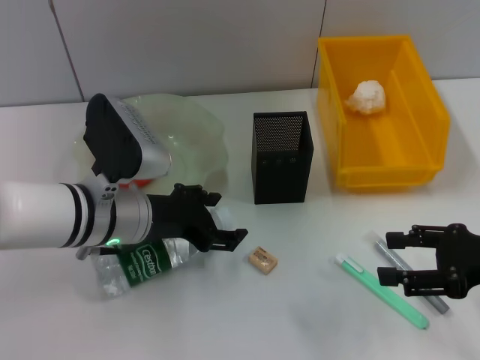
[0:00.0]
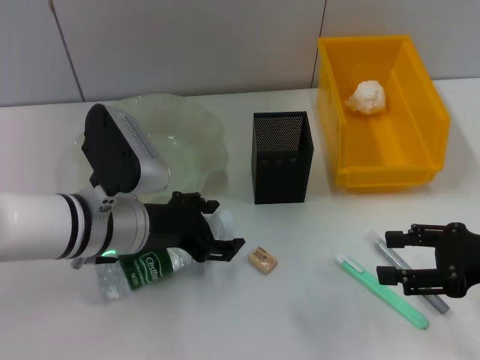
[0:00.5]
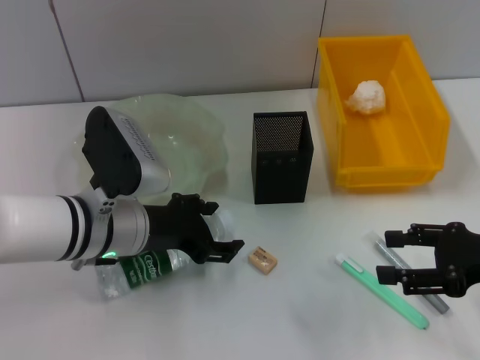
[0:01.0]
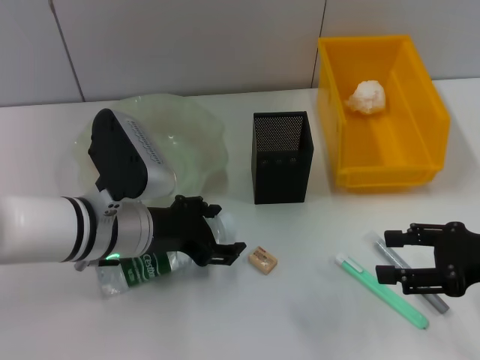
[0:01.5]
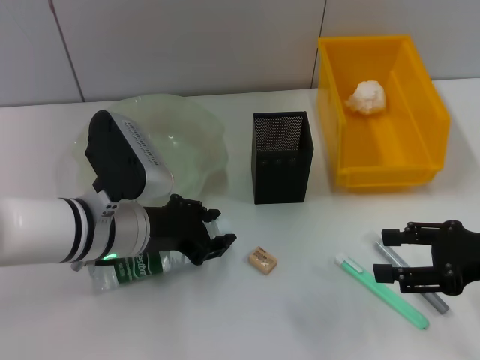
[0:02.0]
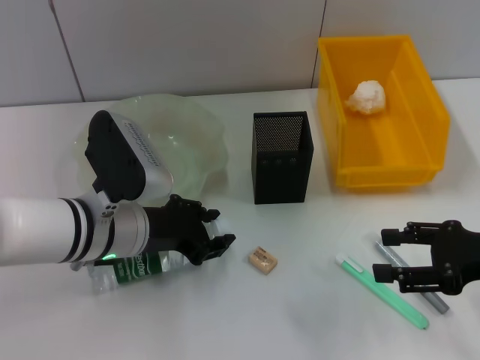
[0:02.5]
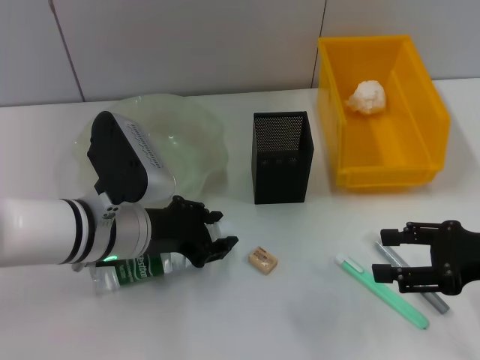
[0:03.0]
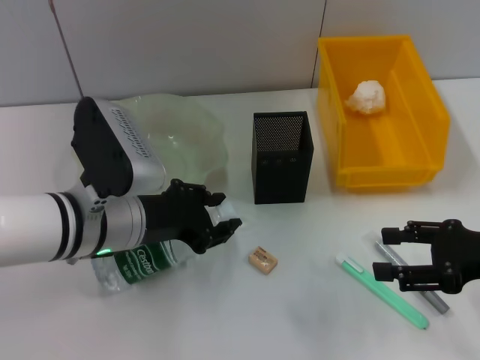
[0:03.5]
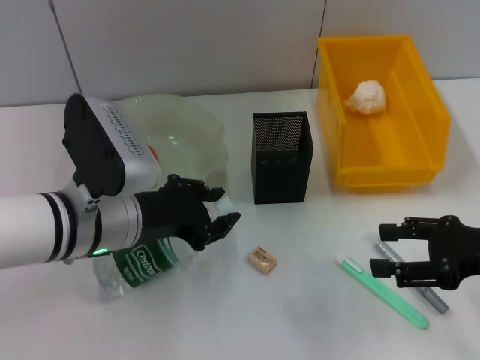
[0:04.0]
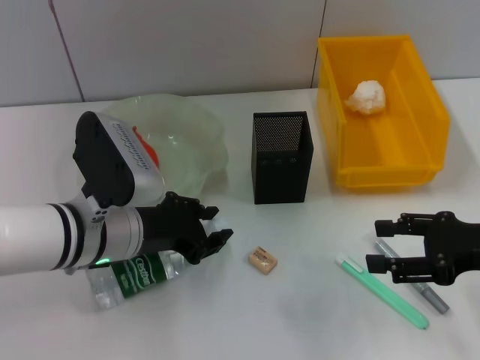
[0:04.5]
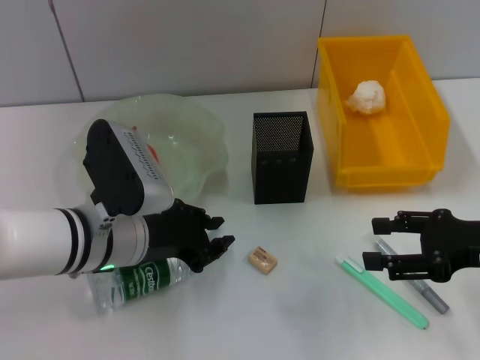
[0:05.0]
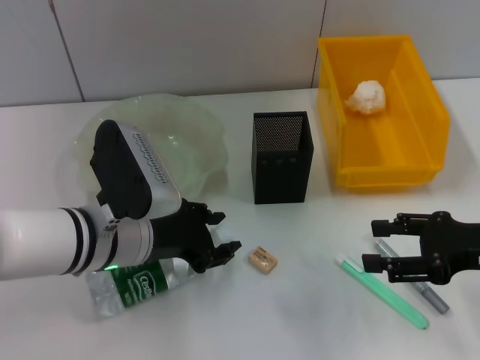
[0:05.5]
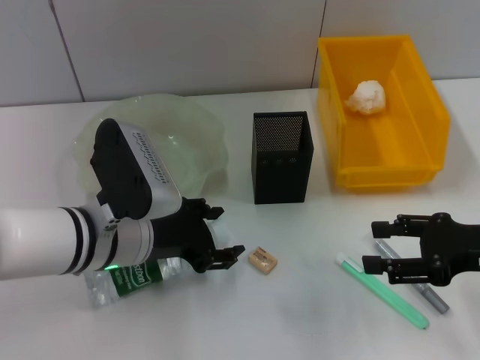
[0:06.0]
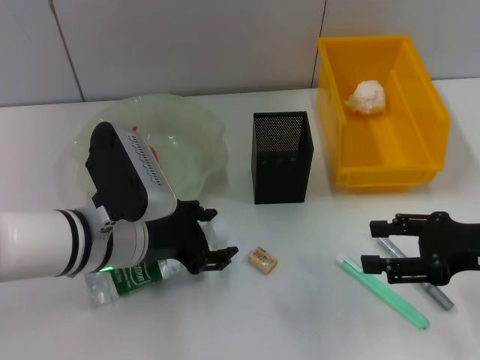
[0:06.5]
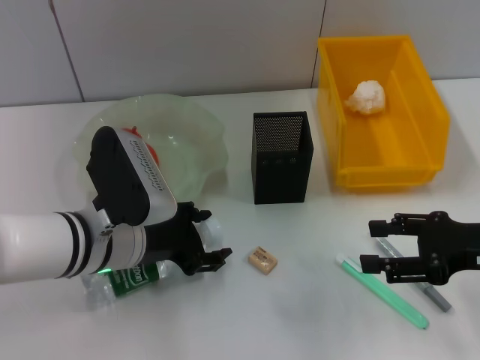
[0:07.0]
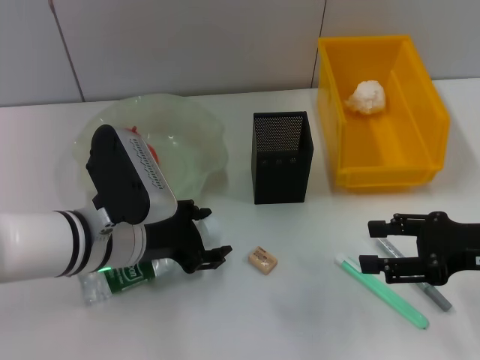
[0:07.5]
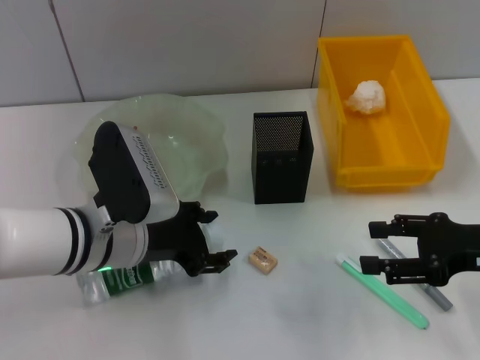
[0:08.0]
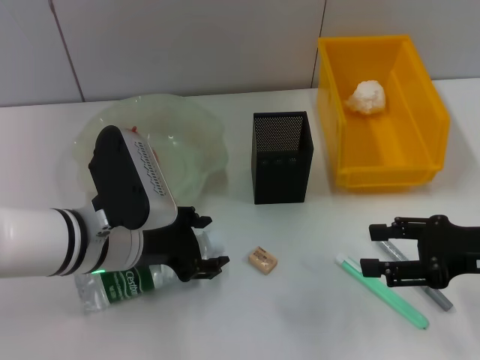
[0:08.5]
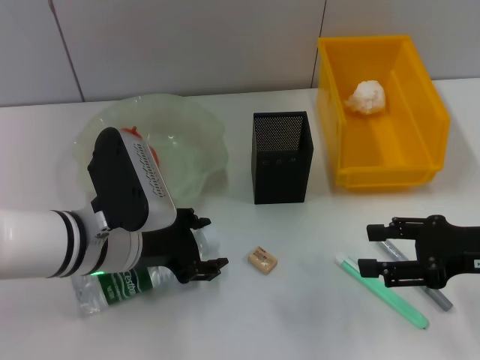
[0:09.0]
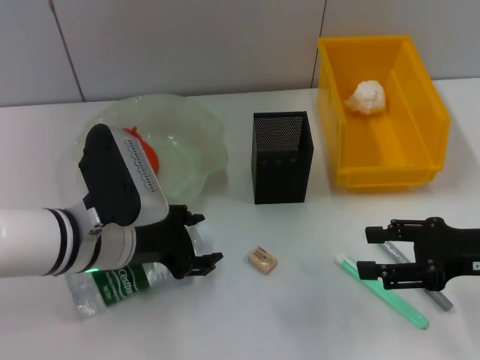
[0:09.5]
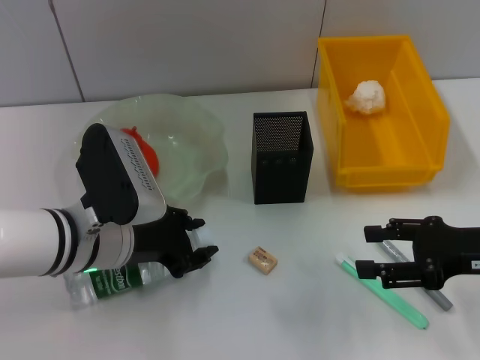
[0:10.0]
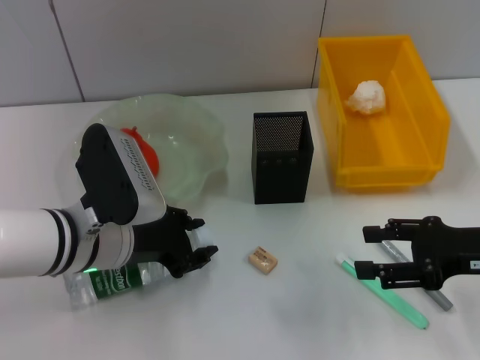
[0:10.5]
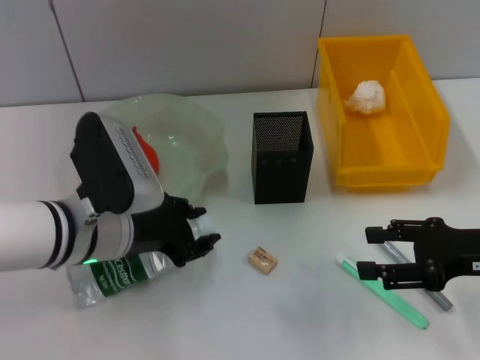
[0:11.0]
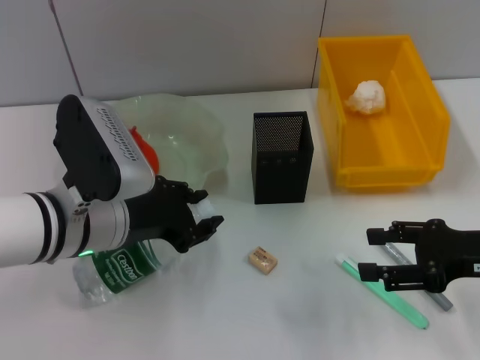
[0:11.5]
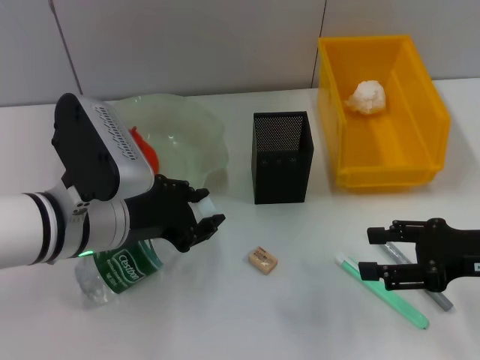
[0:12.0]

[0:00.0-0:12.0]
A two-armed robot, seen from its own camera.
Step, 0:00.0 to 0:11.0: Grab the water bottle with the left hand.
0:00.0 to 0:02.0: Both grippers stay about where they are.
0:02.0 to 0:04.0: There are only small adjustments of the grippers.
0:04.0 to 0:06.0: The left gripper opens.
0:06.0 to 0:08.0: The two grippers keep their place.
0:08.0 to 0:10.0: Both grippers stay put.
0:10.0 to 0:12.0: The grippers move only a little.

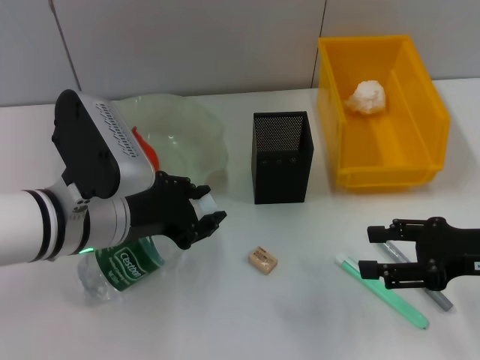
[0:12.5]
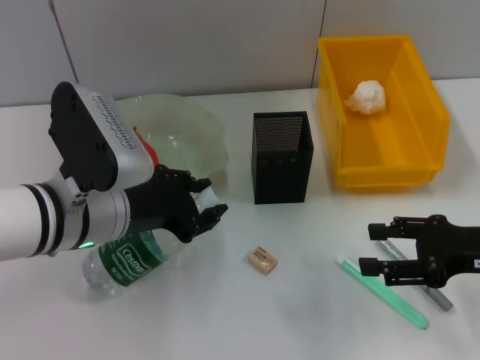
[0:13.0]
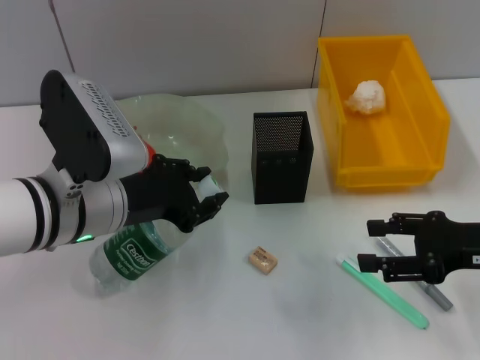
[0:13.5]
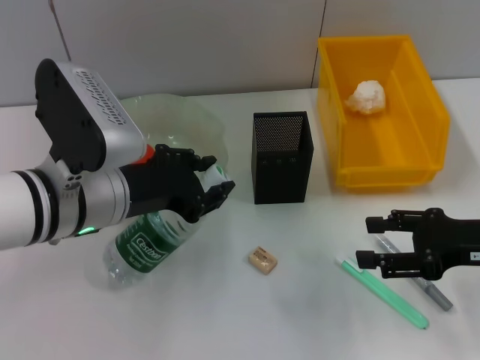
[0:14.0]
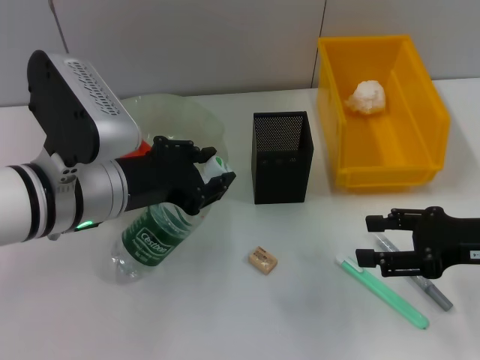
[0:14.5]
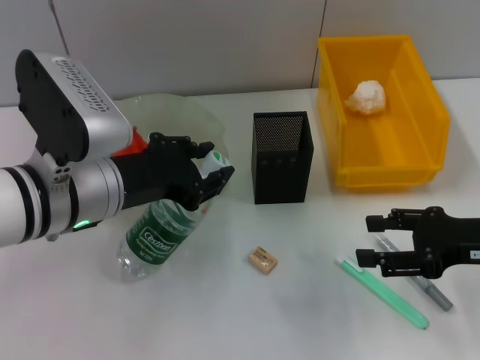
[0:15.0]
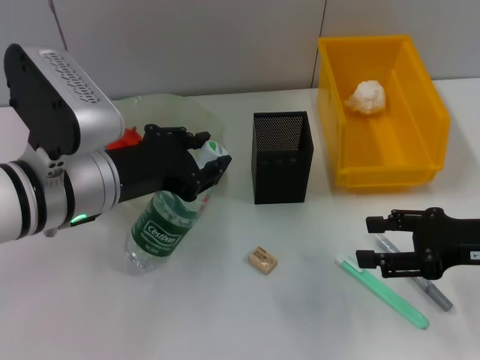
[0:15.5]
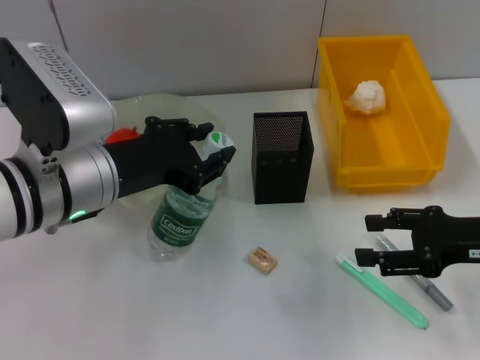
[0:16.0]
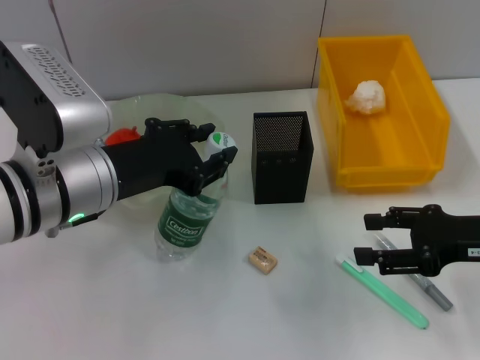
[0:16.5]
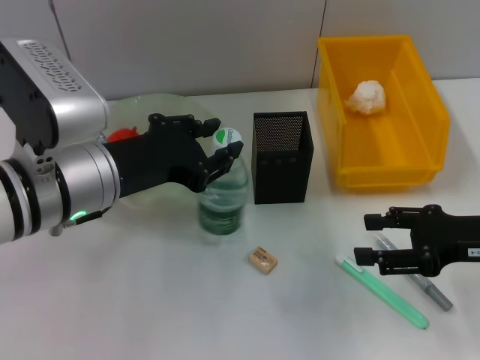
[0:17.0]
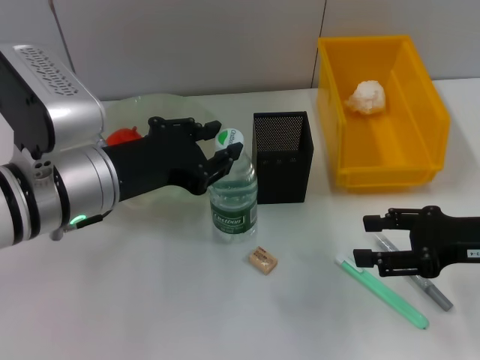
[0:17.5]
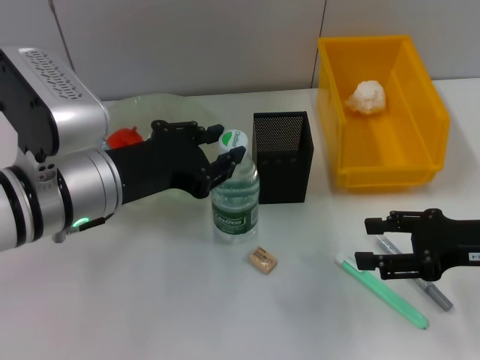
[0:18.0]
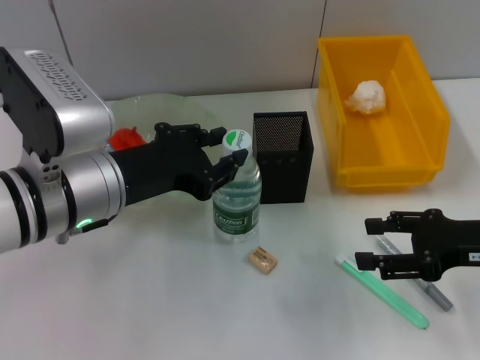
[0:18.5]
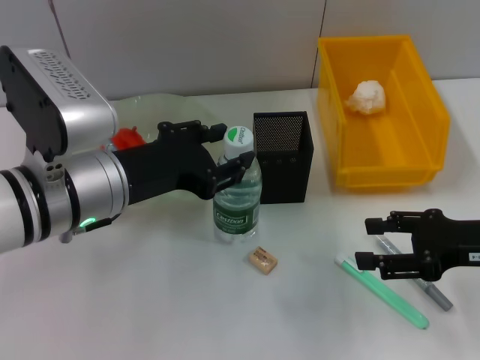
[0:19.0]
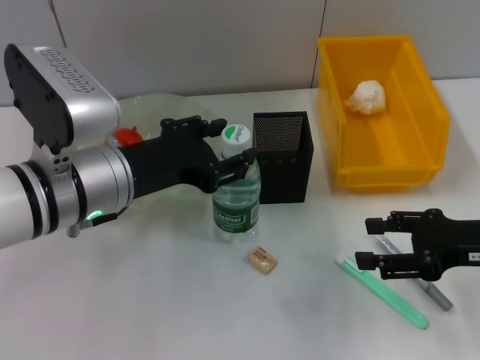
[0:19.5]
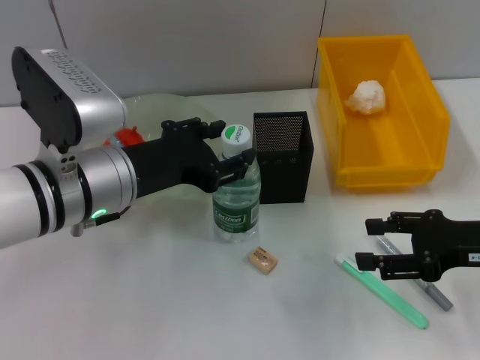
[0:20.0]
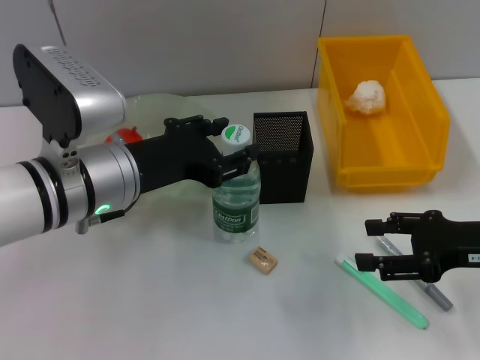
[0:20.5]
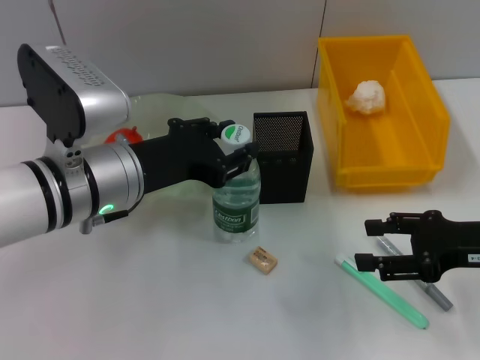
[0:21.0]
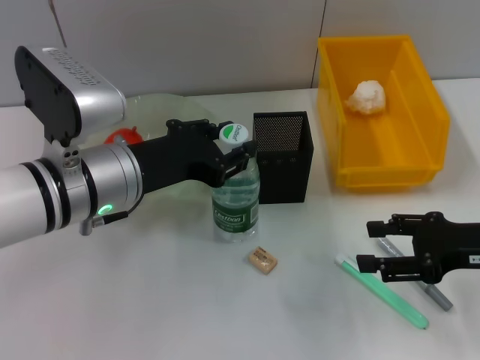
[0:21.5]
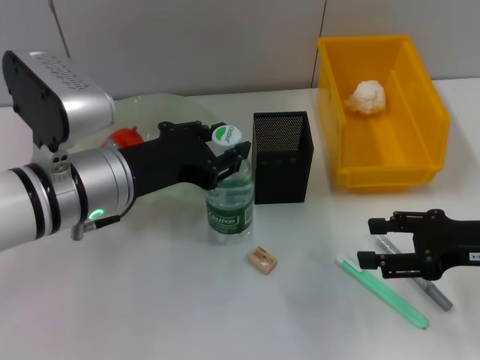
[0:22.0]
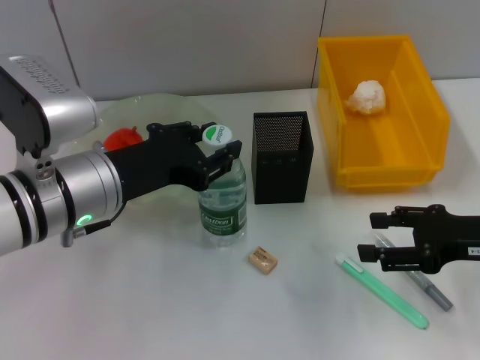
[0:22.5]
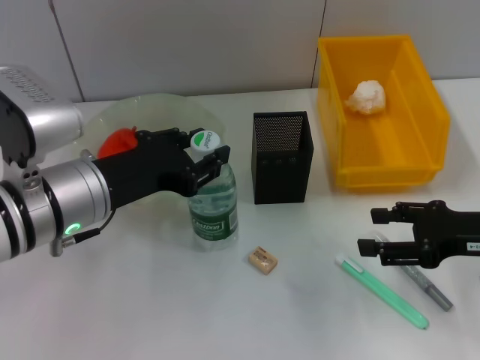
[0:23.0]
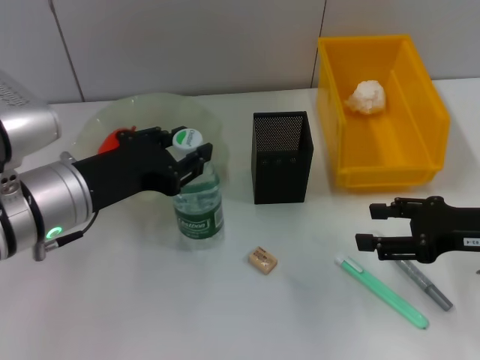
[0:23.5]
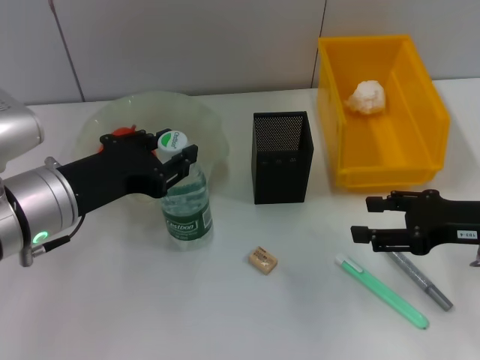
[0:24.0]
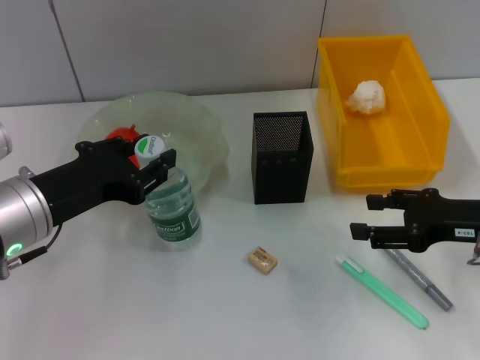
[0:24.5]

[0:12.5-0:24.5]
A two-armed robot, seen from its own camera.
Step, 0:12.5 to 0:19.5: Place the water bottle on the table with the left hand.
Step, 0:20.0 to 0:21.5: Grab the water bottle with the left hand.
0:12.5 to 0:16.5: The grippers stay close to where they were, moving slightly.
0:16.5 to 0:18.5: Both grippers stay put.
0:18.5 to 0:22.5: There are only small adjustments of the grippers.
0:22.5 to 0:24.5: The left gripper moves to the left, roughly 5 cm.

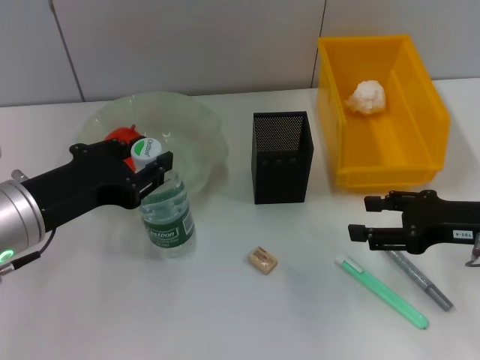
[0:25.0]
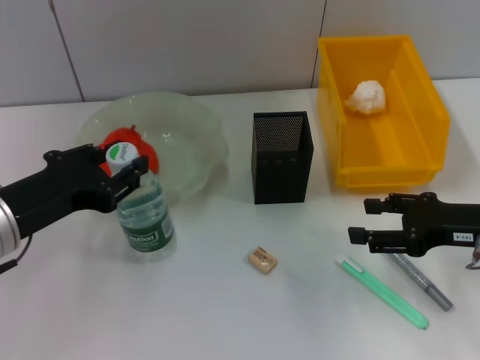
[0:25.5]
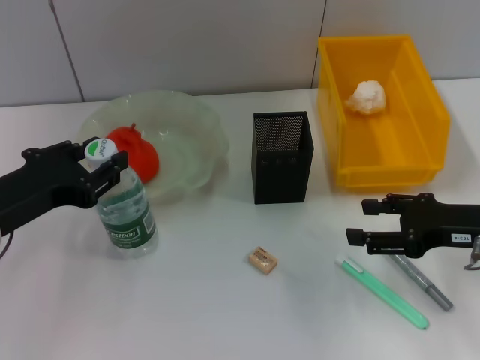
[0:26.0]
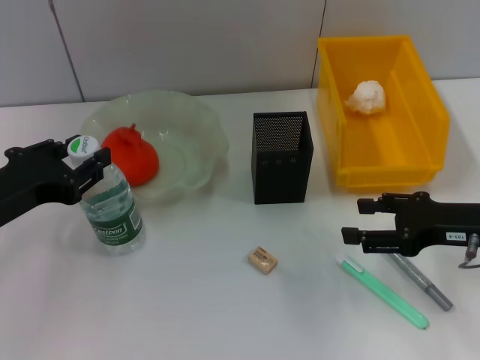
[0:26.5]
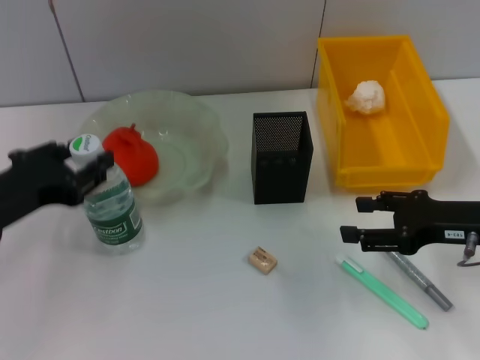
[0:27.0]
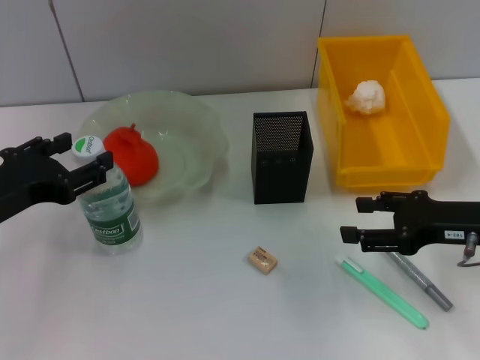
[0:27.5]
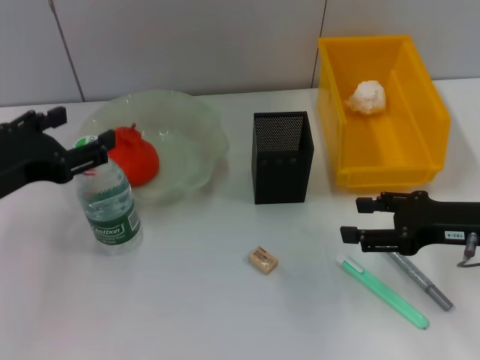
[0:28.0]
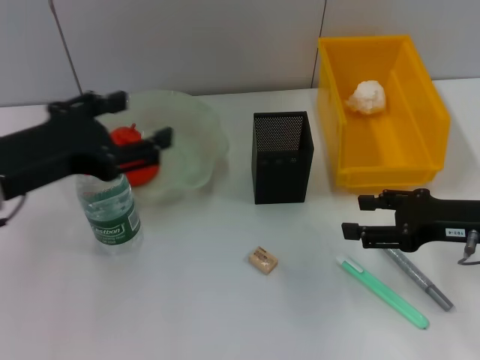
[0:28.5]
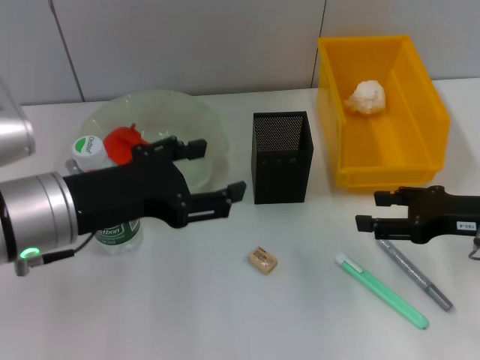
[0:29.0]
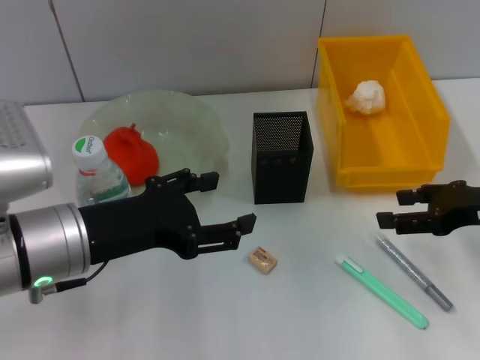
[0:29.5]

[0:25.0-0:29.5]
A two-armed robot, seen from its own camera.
Step, 0:25.0 to 0:27.0: Place the water bottle on the table with the left hand.
0:25.0 to 0:27.0: The grippers make only small movements.
0:27.0 to 0:29.5: The left gripper shifts roughly 10 cm to the right, and opens up.
